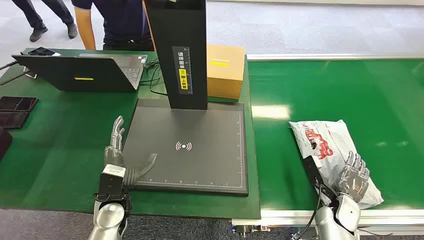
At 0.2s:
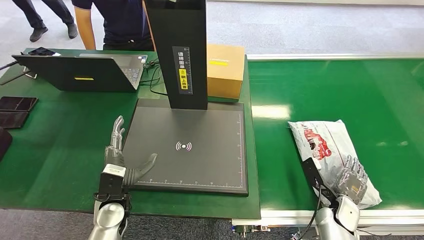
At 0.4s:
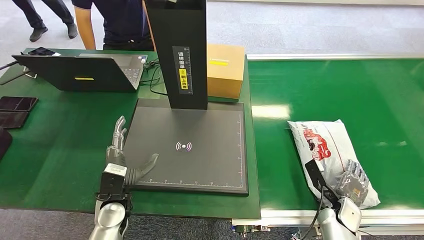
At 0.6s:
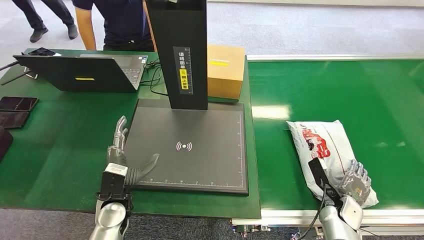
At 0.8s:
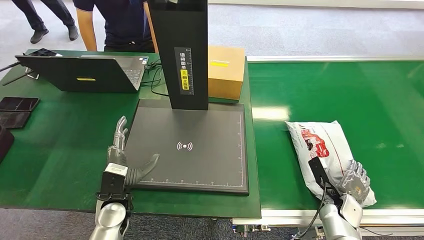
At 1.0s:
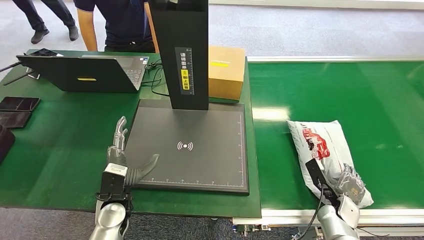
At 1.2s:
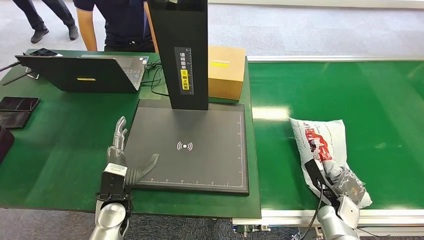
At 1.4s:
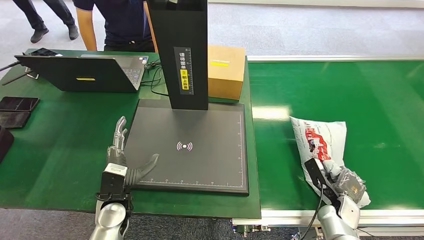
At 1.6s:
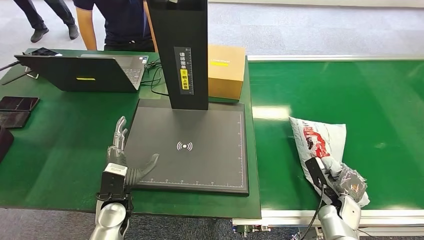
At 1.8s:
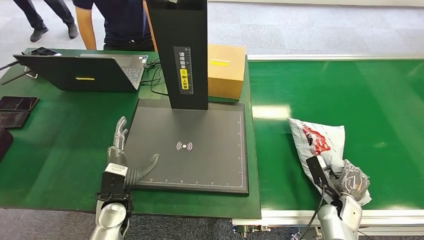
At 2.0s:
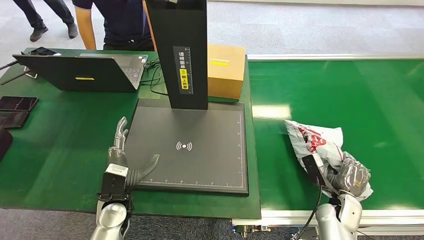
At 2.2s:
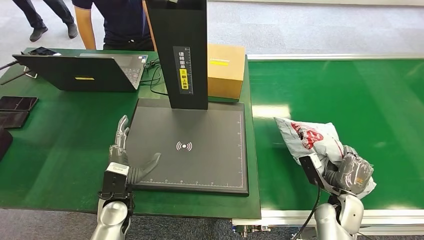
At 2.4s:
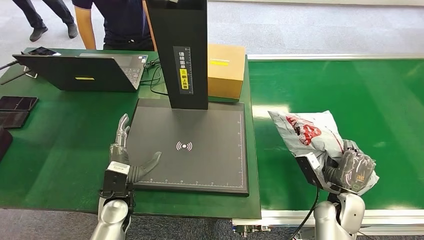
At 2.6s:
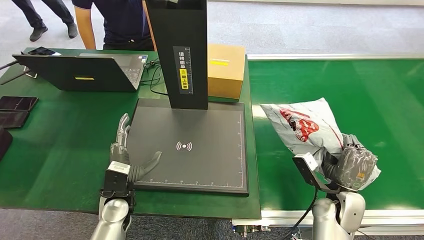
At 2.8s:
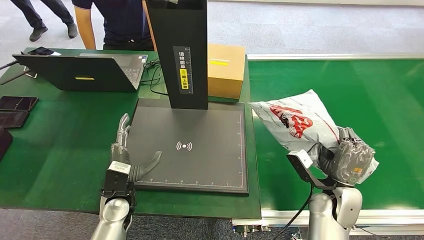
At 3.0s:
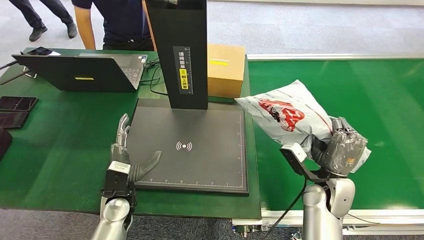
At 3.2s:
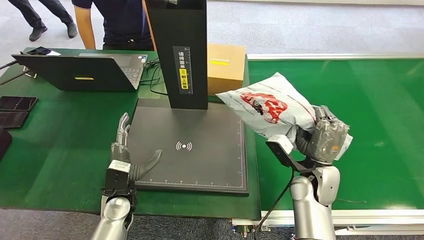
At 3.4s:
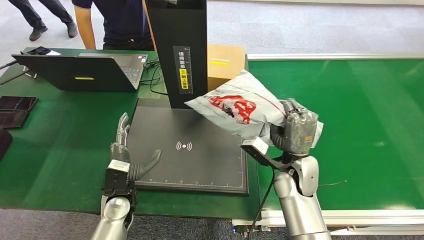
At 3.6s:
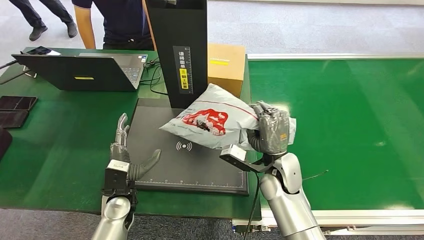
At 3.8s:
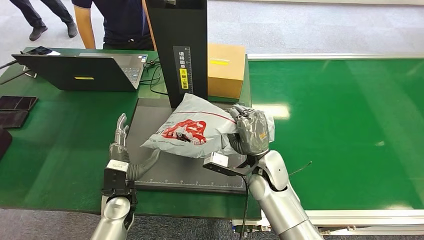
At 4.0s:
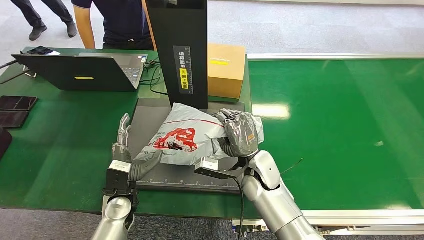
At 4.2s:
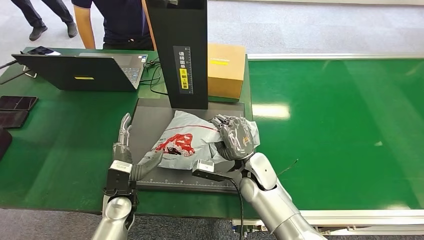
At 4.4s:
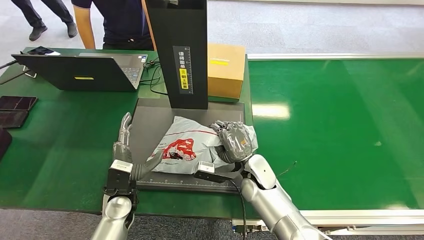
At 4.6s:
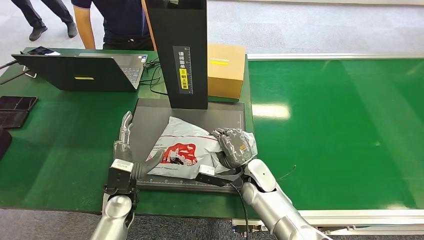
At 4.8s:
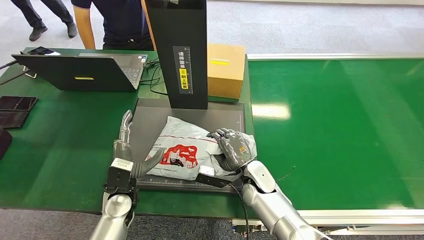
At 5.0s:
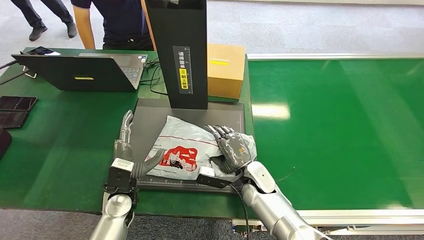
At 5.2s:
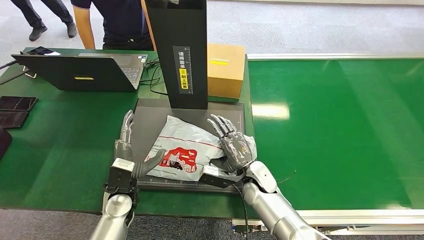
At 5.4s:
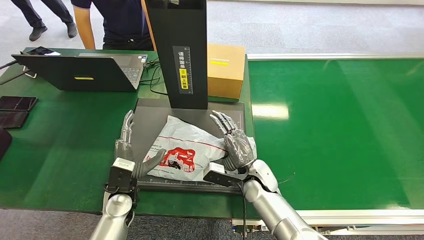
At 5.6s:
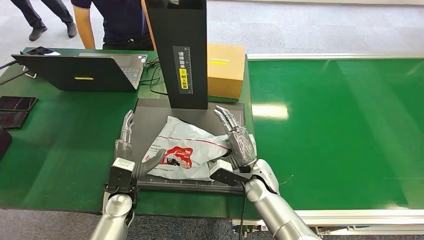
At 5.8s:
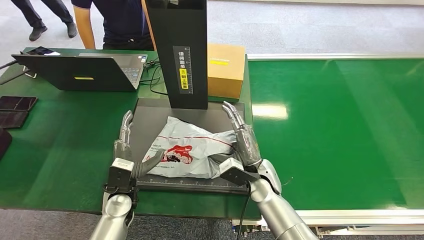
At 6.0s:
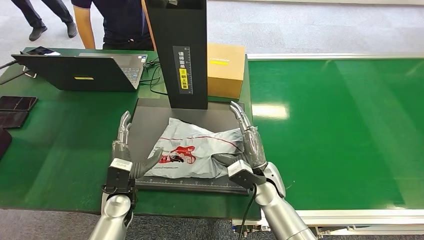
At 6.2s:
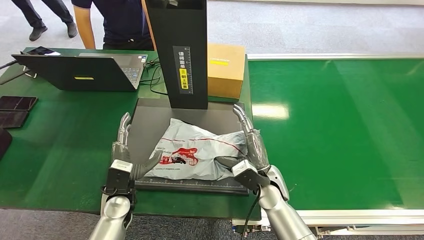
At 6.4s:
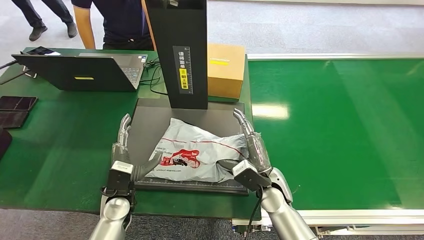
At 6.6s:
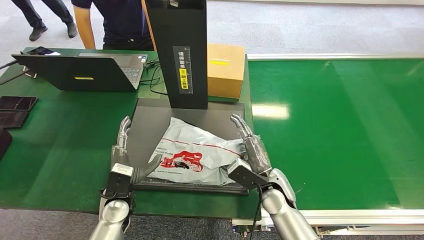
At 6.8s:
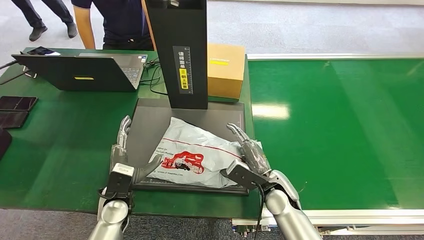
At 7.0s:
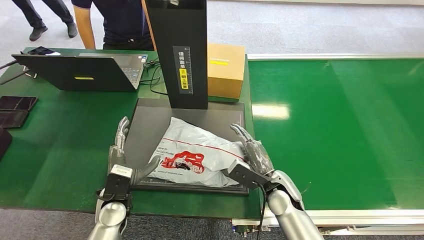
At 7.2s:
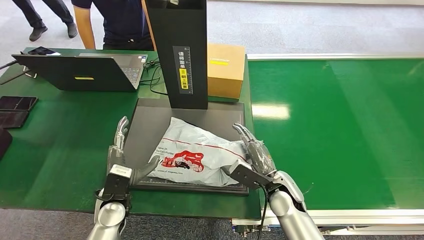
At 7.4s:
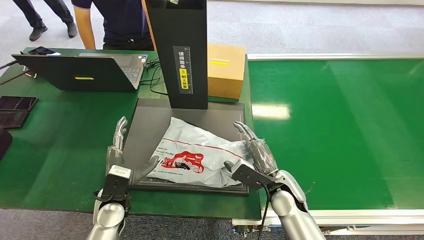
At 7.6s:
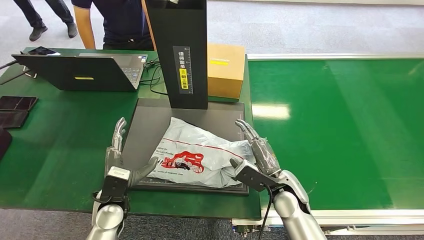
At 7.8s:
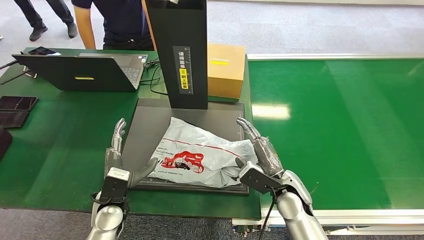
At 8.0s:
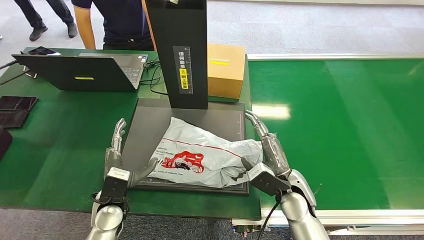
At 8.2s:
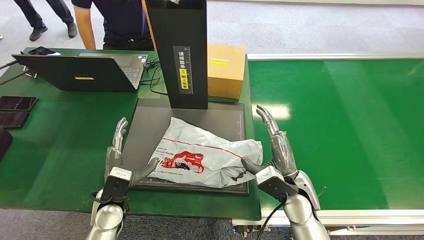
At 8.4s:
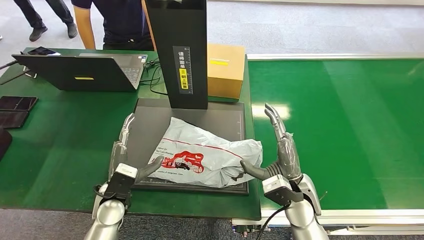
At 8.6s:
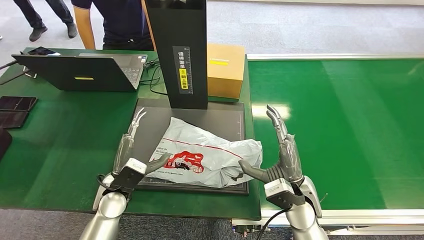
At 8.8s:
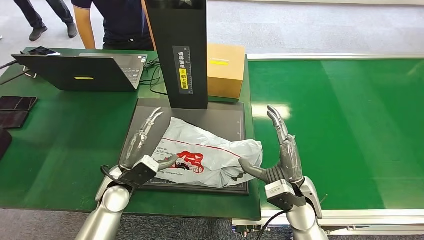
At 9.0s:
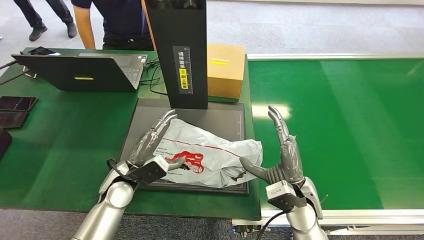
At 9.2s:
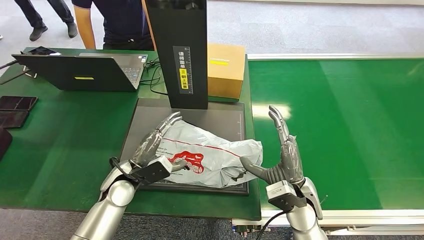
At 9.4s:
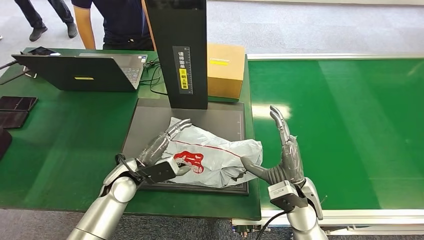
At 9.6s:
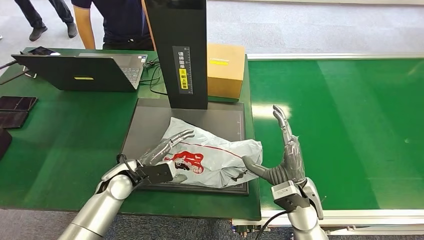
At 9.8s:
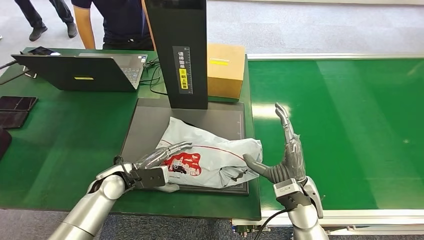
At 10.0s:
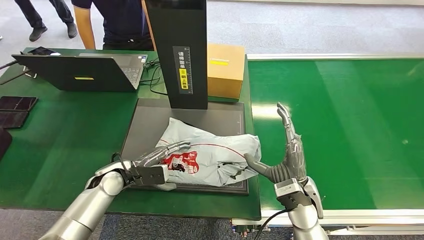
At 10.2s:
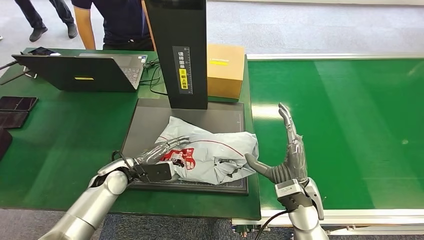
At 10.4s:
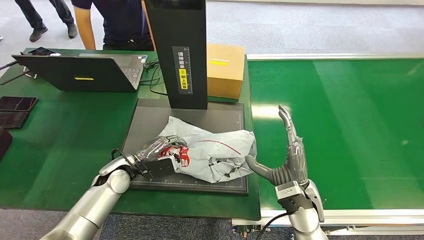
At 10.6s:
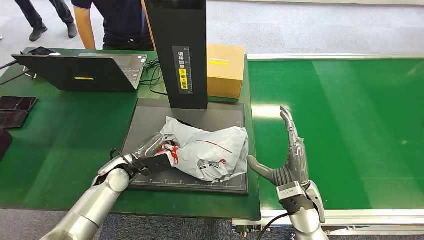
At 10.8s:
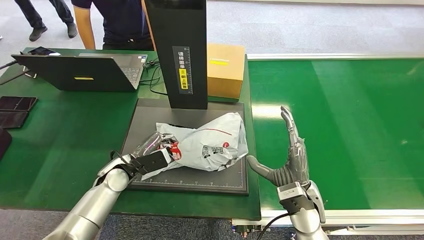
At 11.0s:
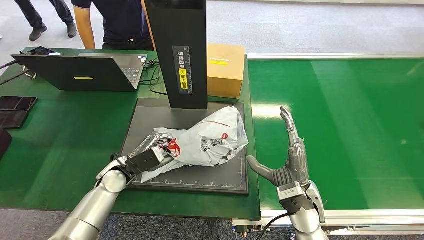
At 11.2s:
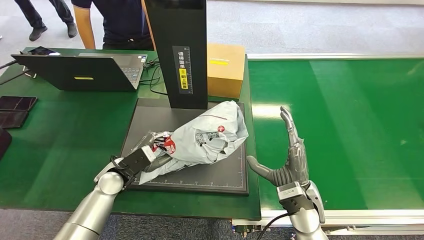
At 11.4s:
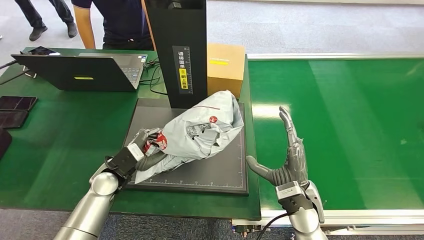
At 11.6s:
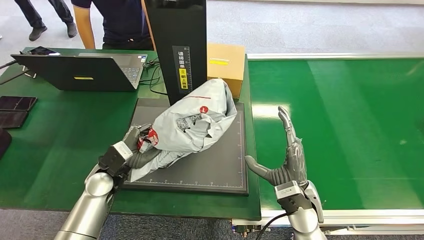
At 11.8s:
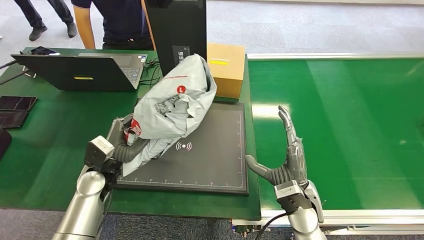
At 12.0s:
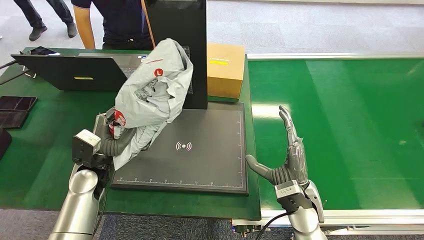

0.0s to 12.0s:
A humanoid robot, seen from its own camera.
Step, 0.0s to 3.2s: Pick up the package from the conveyor belt.
Step, 3.4s to 8.2s: Place the package onto the inbound machine.
1.6s to 3.0s: The right hand shifts roughly 15 cm upward and to the left.
3.0s to 4.4s: The right hand heads to the left, covering approximately 20 cm.
6.0s to 7.6s: The right hand heads to the right, covering about 5 cm.
7.6s to 9.0s: The left hand changes place by about 5 cm. Meanwhile the right hand changes place by approximately 5 cm.
9.0s to 10.4s: The left hand shifts by approximately 5 cm.
10.4s to 12.0s: The left hand ends up about 5 cm from where it was.

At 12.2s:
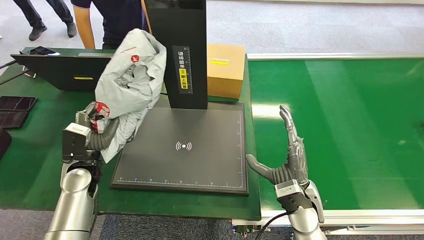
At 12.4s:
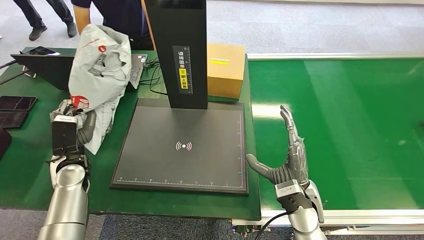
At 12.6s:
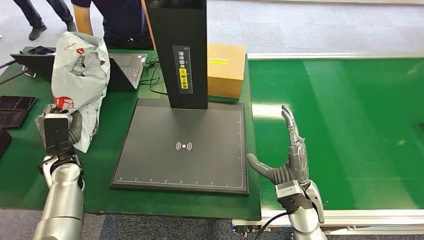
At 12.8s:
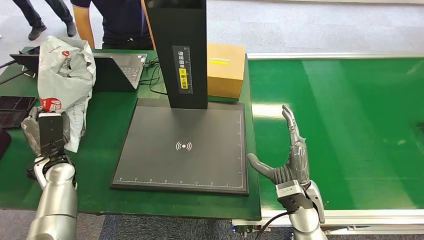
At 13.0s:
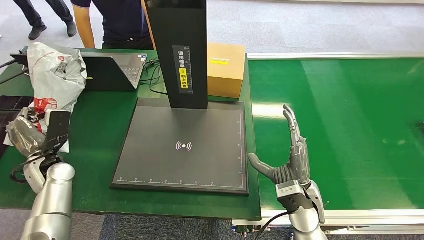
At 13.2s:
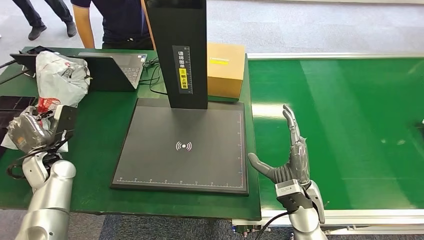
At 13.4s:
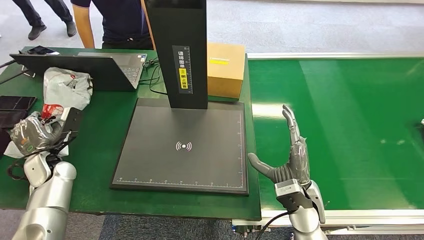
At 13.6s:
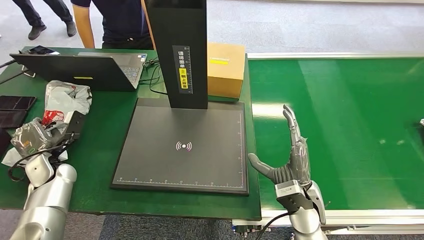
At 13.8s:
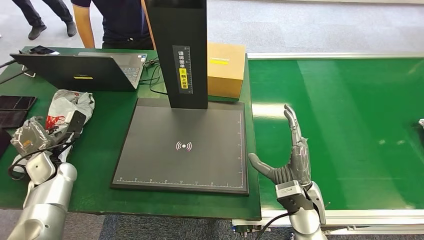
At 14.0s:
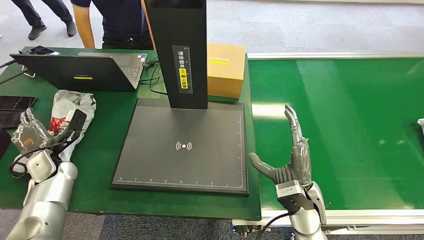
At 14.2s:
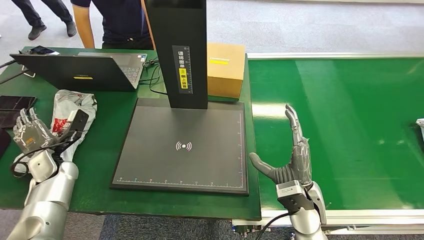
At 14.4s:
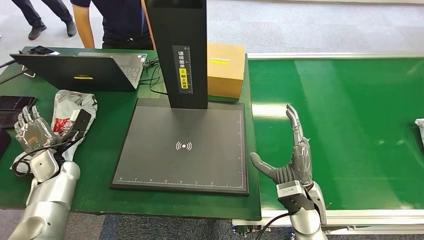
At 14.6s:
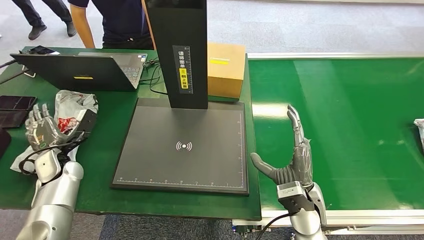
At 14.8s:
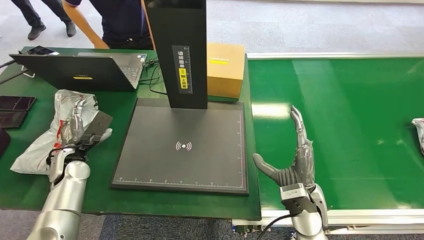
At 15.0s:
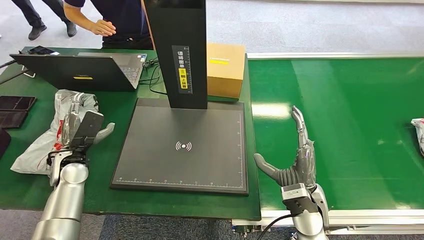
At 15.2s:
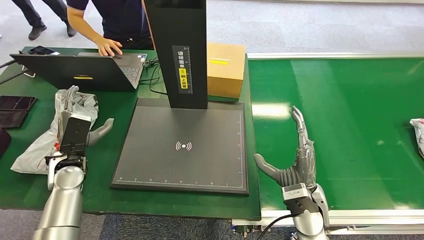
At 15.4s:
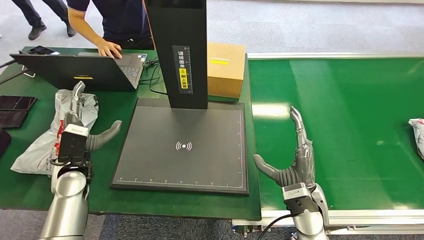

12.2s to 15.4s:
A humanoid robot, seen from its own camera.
Step, 12.2s to 15.4s: Place the package into the parcel locker.
12.2s to 13.8s: The left hand travels to the left by some 10 cm.
13.8s to 15.4s: The left hand heads to the right, covering approximately 10 cm.

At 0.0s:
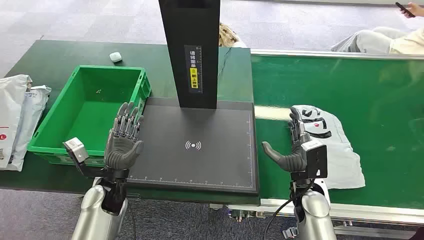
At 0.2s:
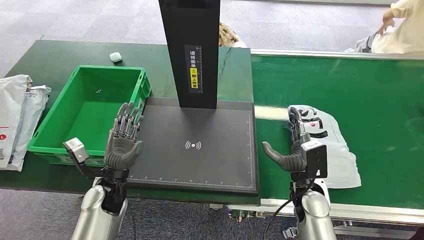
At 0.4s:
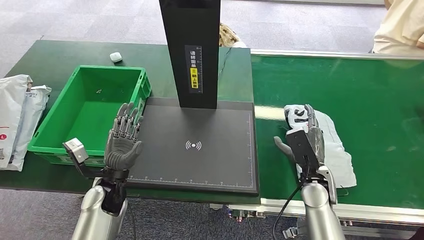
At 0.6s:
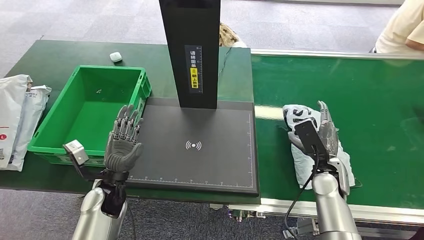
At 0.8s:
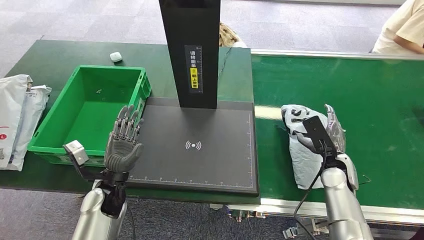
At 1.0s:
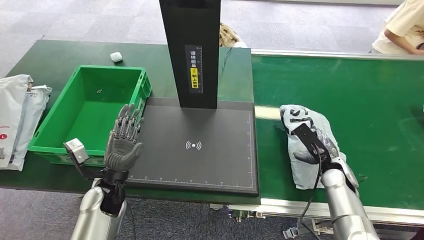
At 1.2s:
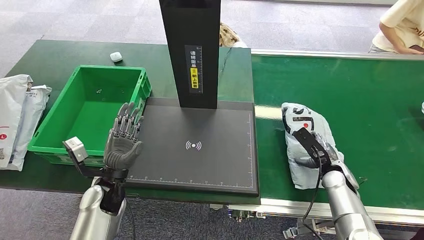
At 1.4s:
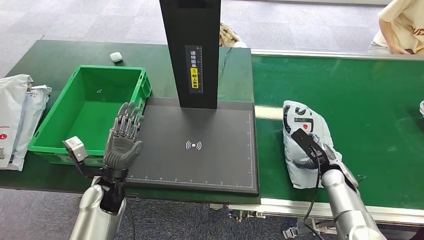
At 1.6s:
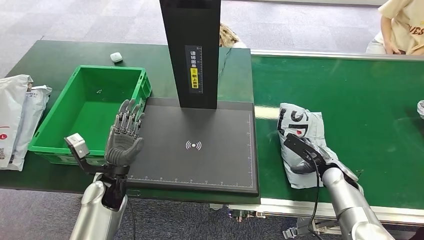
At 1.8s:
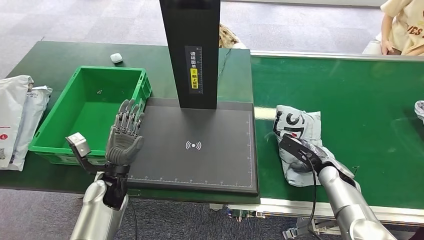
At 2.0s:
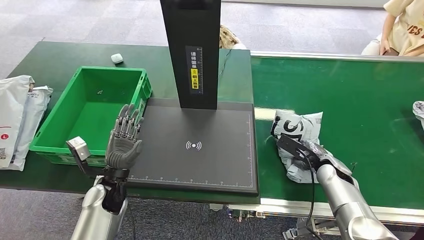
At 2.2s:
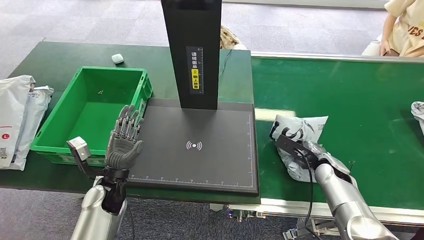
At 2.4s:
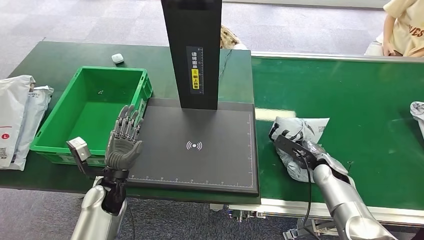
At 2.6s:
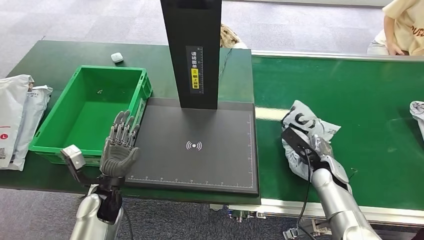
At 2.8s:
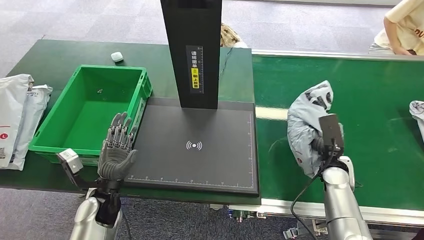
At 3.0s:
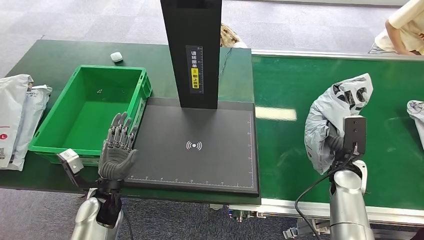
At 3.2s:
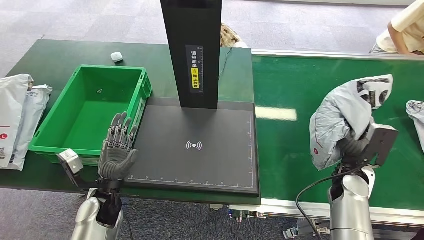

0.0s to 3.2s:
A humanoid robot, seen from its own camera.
Step, 0.0s to 3.0s: Pick up the package from the conveyor belt.
1.6s to 3.2s: The right hand goes roughly 5 cm upward.
